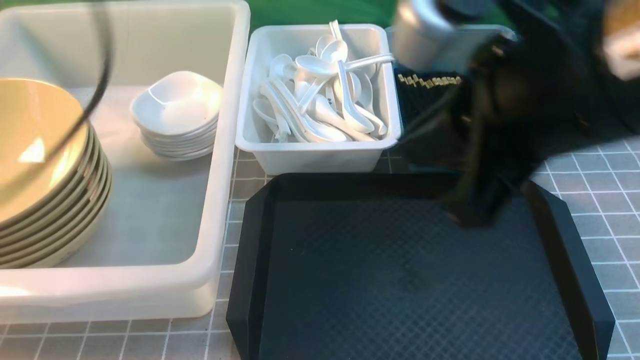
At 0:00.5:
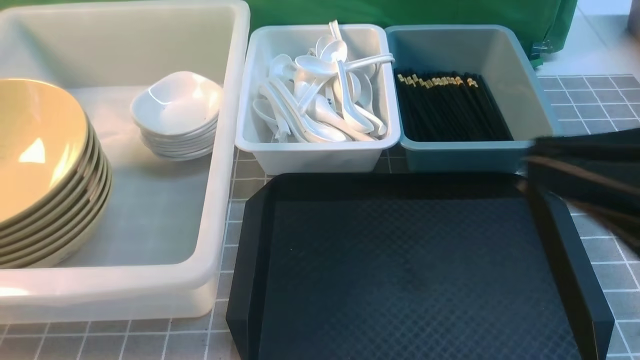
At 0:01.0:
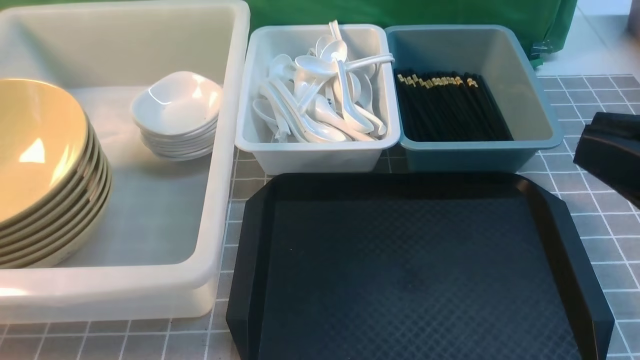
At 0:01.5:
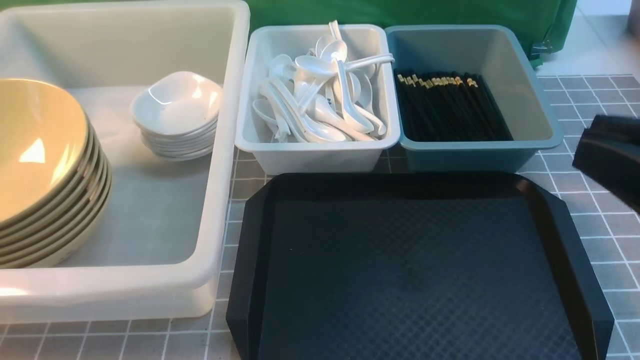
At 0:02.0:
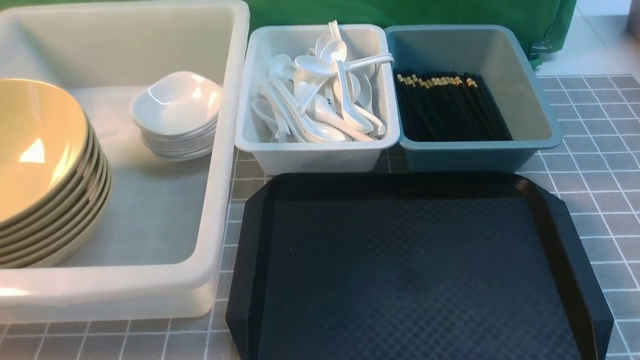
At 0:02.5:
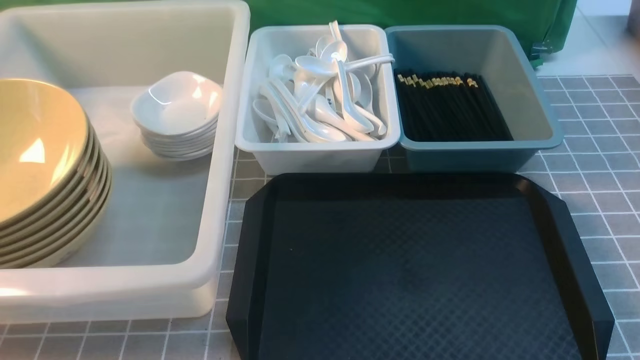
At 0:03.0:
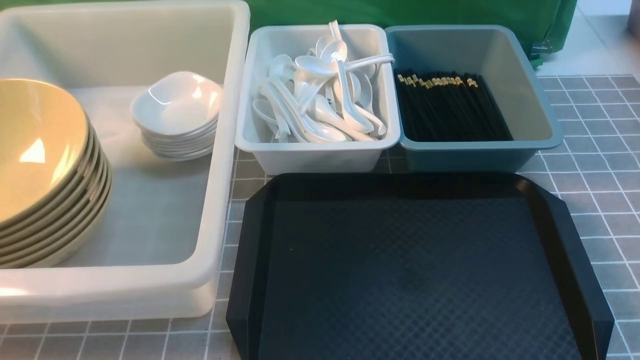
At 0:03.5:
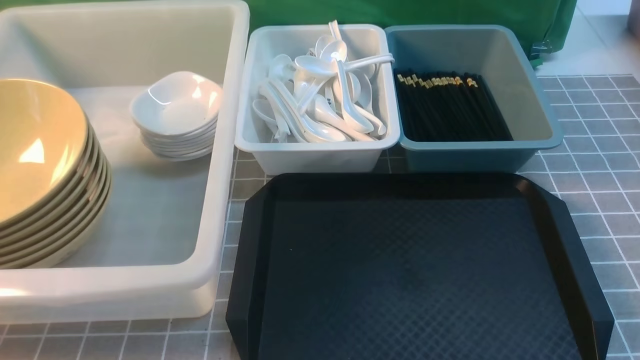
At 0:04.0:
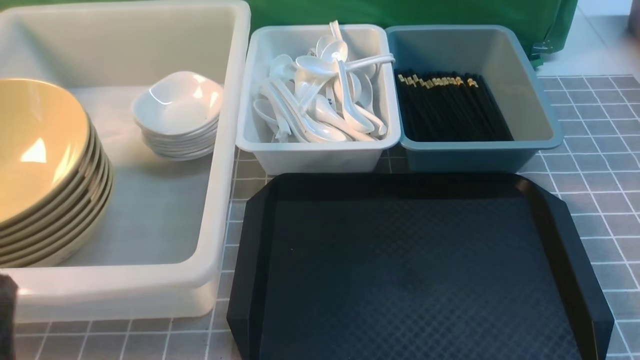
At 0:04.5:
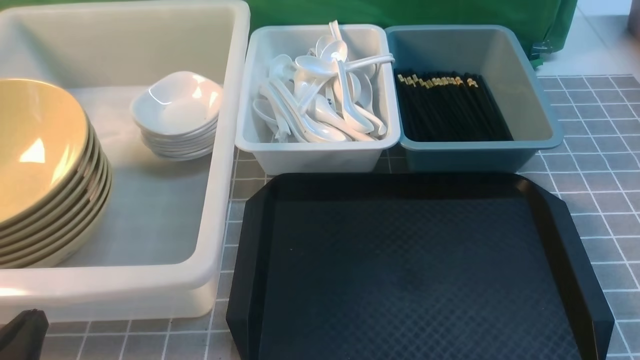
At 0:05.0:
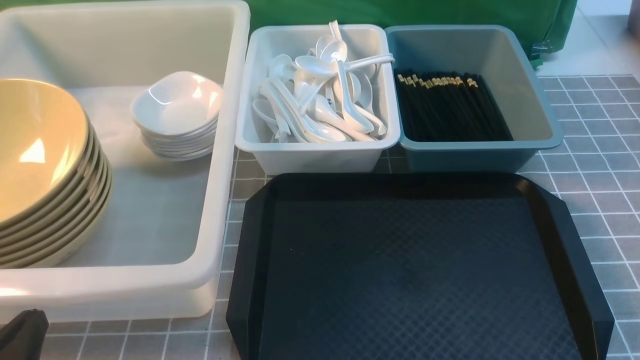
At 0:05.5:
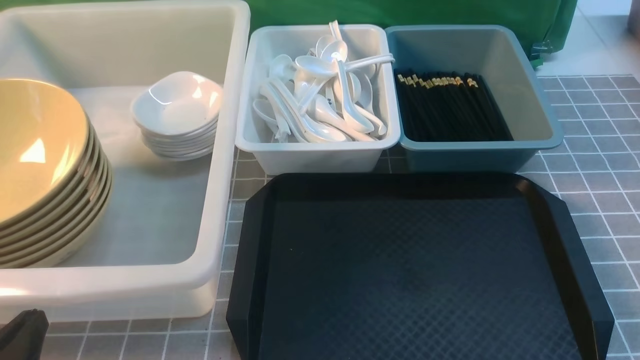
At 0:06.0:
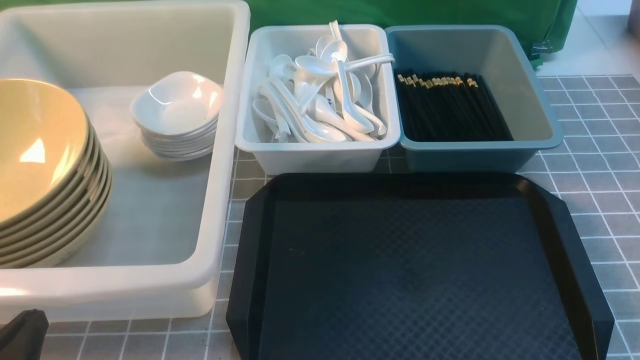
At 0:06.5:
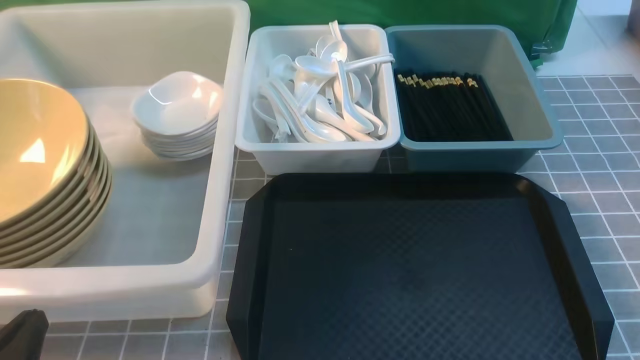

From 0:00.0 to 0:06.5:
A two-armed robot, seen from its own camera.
Task of the whole recording: on grey table put chopsticks spoon bowls plates into blue grey white boxes.
From 0:00.0 to 0:02.0: The right gripper shifts about 25 cm downward, to the right and backward. Meanwhile the left gripper moves downward and backward, about 20 cm.
From 0:02.0 to 0:04.5: The left gripper goes some 10 cm downward.
From 0:04.5 to 0:06.5: The two grippers keep their place.
